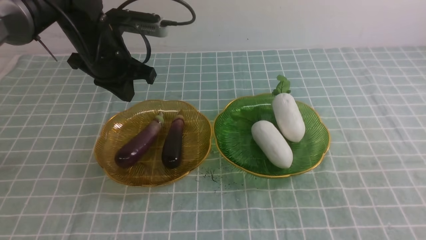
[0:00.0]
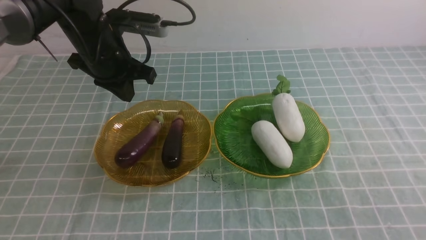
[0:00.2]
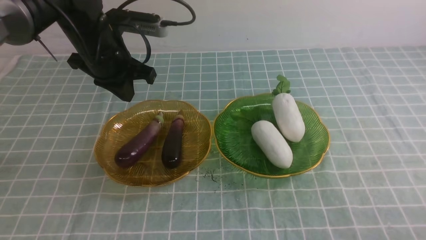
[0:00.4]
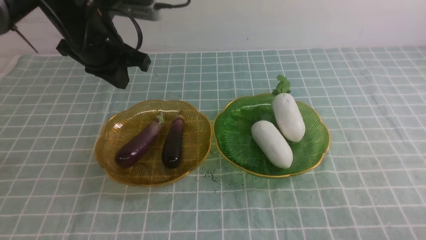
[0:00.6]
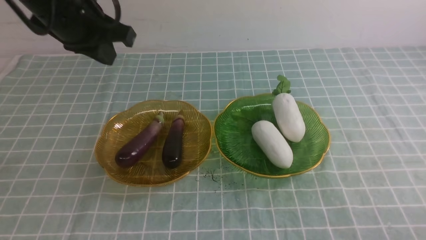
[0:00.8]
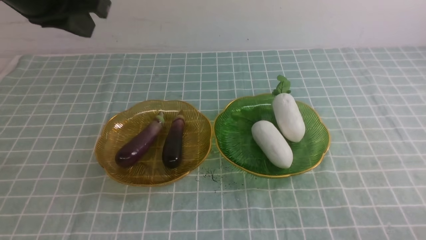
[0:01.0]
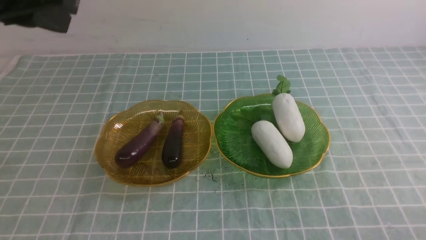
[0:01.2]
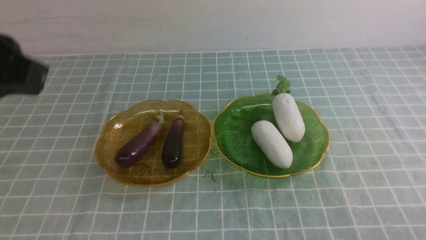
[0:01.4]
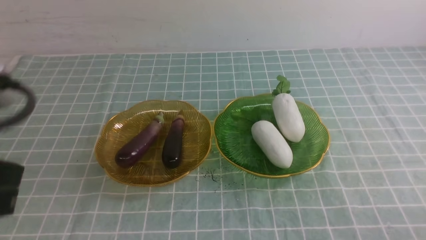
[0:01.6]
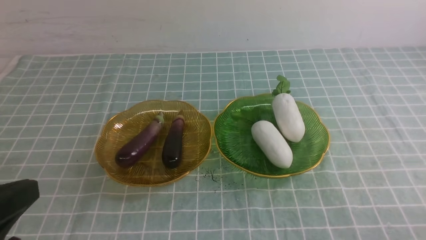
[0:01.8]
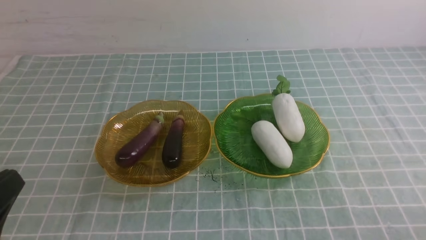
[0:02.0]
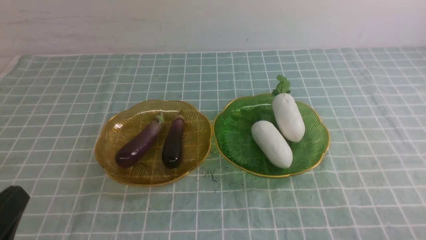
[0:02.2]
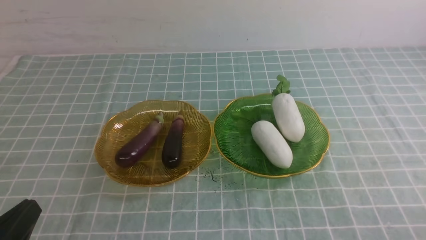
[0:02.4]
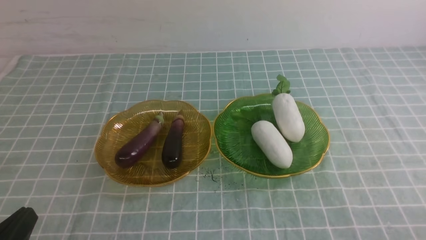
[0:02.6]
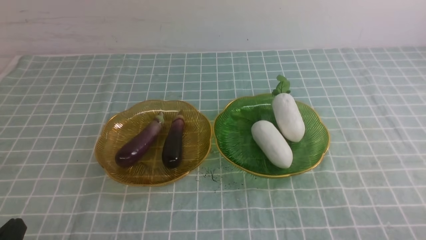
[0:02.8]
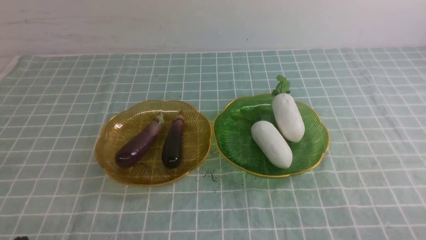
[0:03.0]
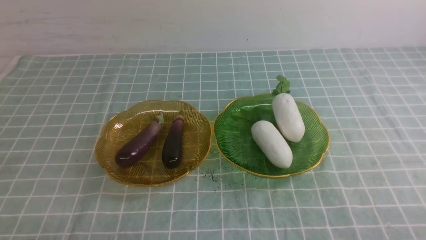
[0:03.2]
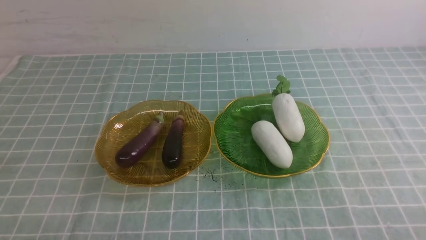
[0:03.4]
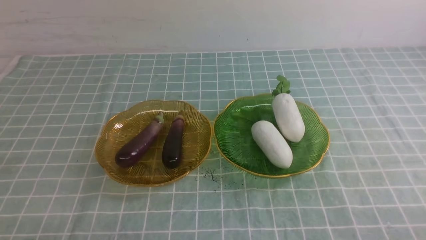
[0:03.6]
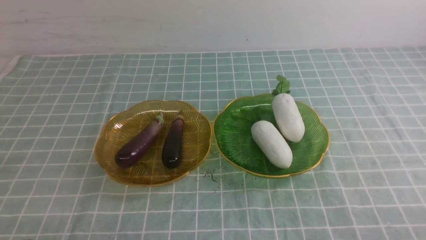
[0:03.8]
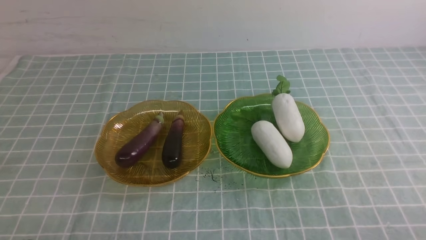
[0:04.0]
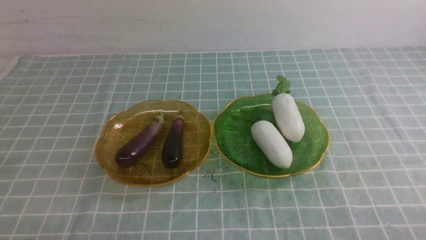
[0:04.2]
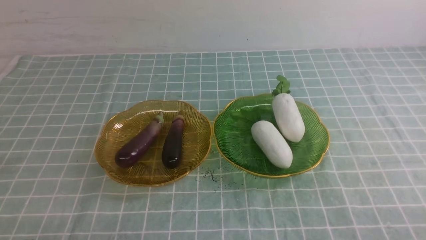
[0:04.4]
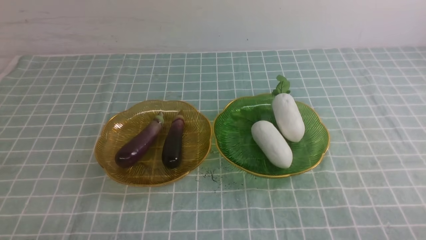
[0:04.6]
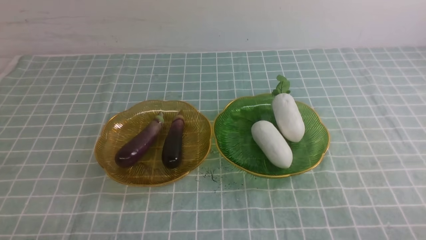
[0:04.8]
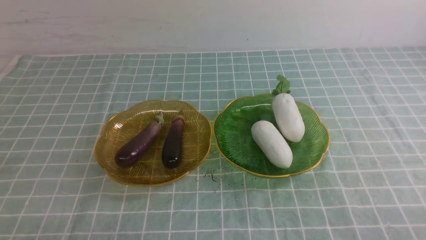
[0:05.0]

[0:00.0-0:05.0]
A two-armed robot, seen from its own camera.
0:00.0 to 0:01.6: The right gripper moves downward, about 15 cm. Meanwhile the left gripper heads backward, covering roughly 25 cm.
0:01.6 to 0:03.4: The left gripper goes approximately 25 cm downward.
0:03.4 to 0:05.0: Both grippers stay about where they are.
